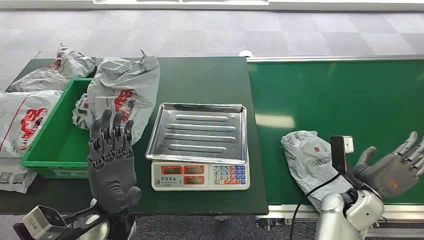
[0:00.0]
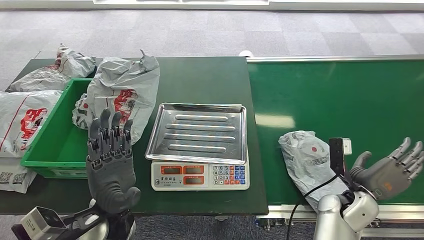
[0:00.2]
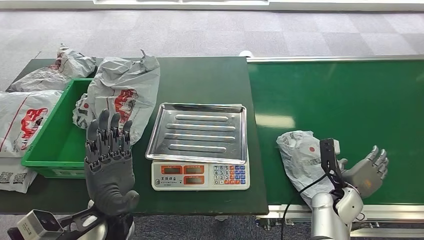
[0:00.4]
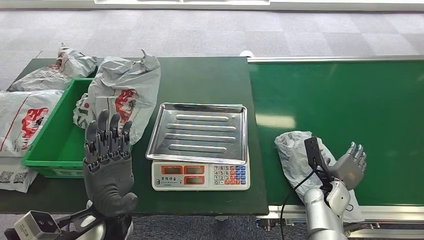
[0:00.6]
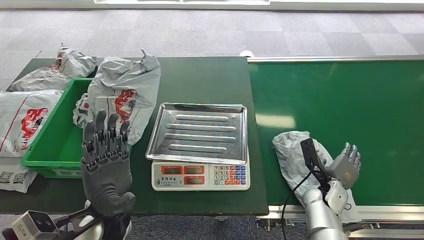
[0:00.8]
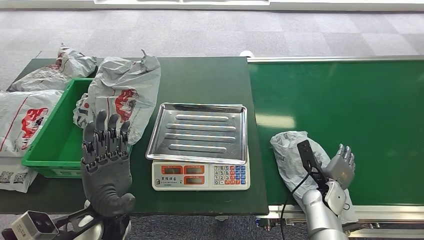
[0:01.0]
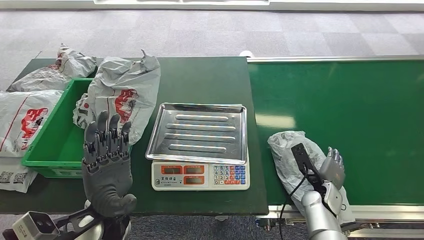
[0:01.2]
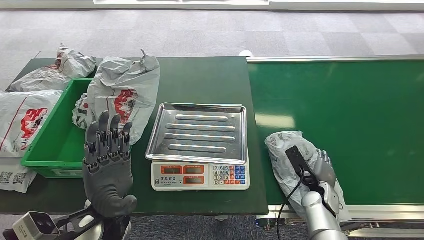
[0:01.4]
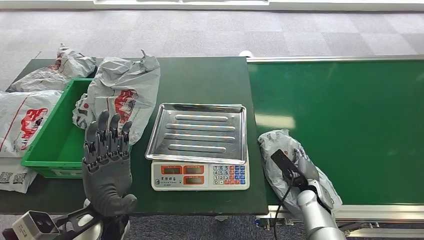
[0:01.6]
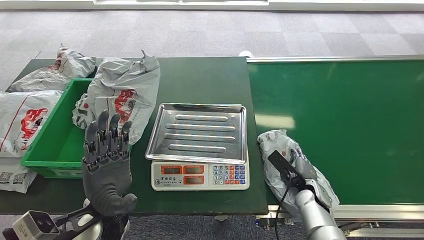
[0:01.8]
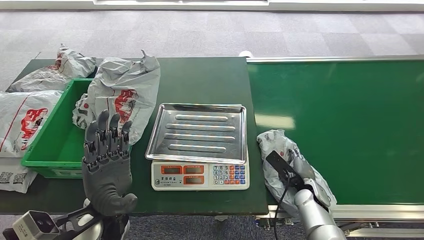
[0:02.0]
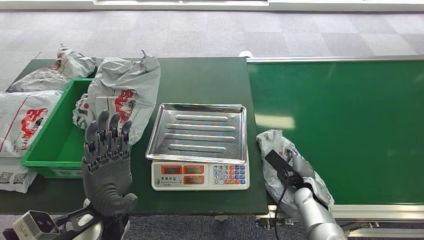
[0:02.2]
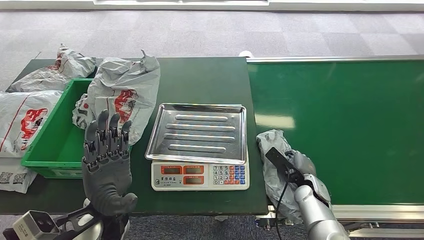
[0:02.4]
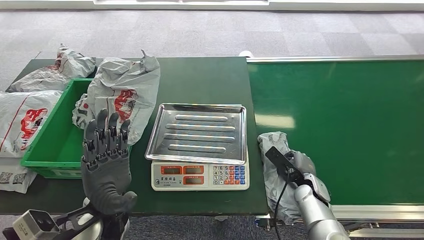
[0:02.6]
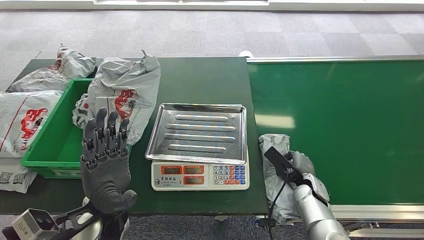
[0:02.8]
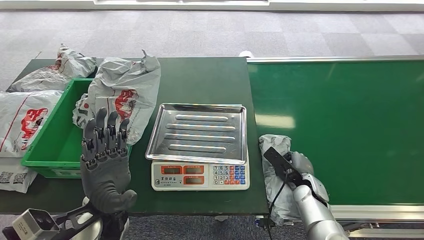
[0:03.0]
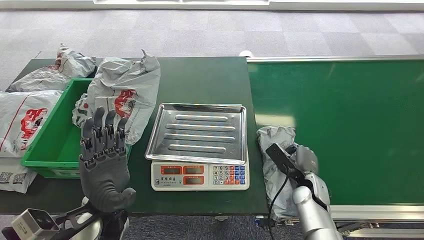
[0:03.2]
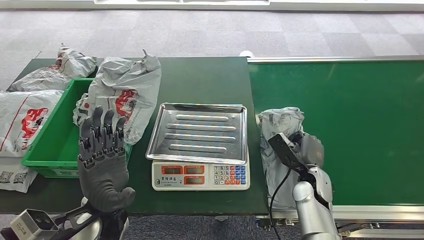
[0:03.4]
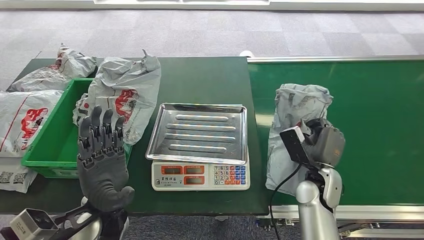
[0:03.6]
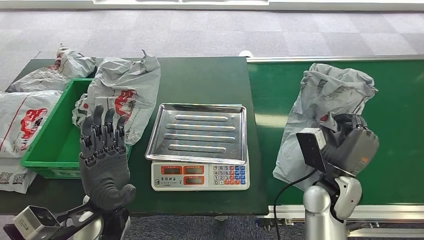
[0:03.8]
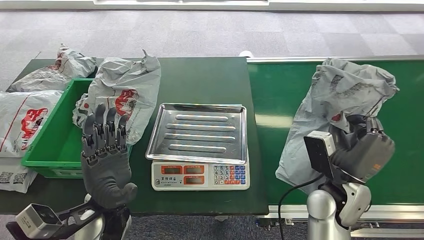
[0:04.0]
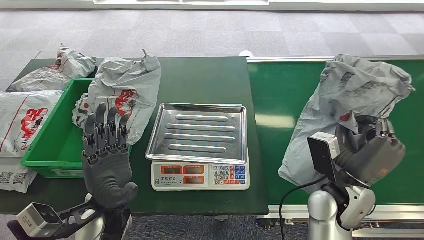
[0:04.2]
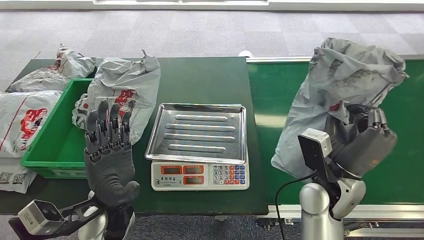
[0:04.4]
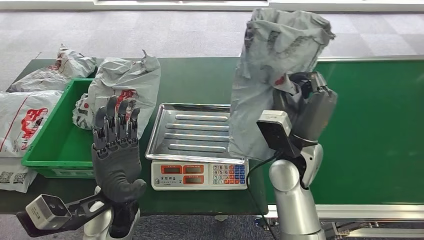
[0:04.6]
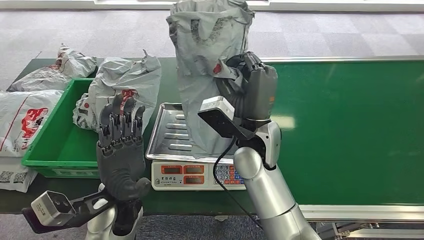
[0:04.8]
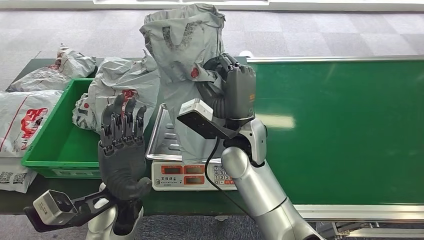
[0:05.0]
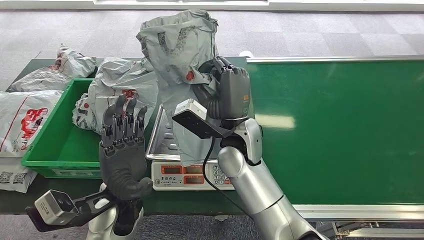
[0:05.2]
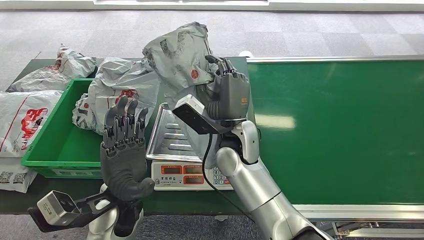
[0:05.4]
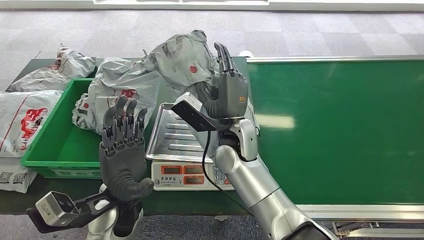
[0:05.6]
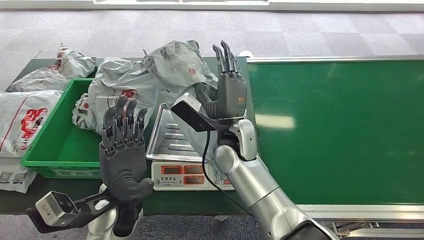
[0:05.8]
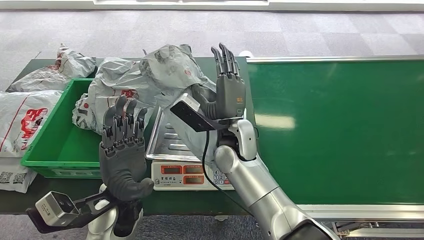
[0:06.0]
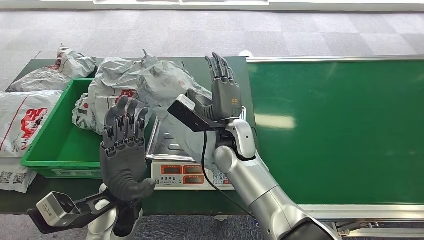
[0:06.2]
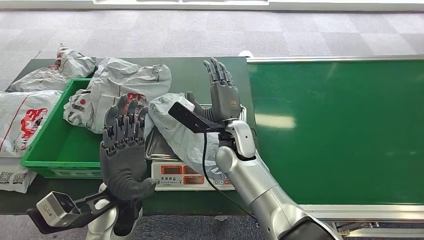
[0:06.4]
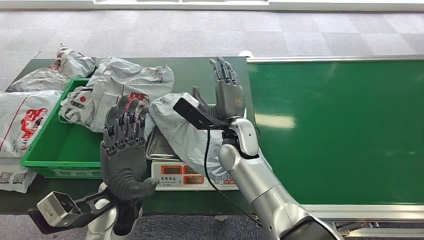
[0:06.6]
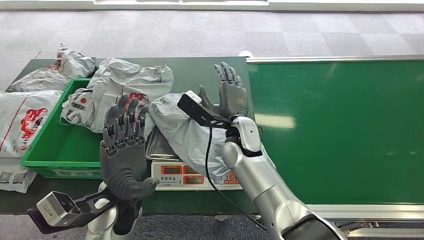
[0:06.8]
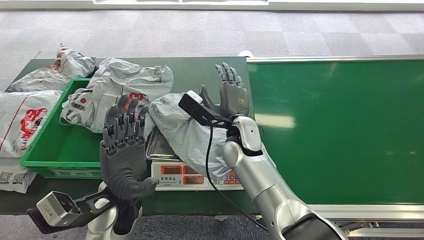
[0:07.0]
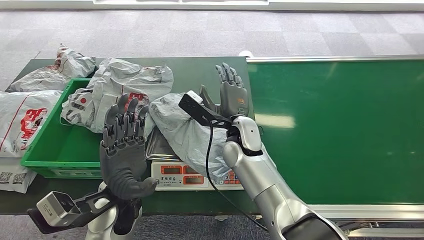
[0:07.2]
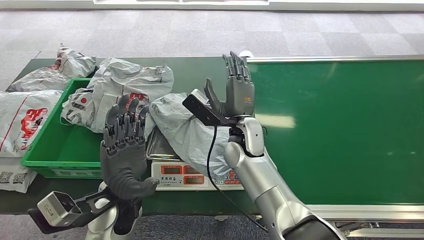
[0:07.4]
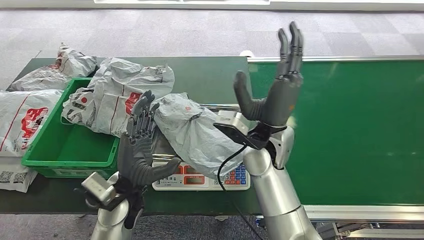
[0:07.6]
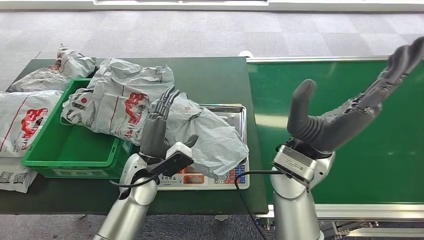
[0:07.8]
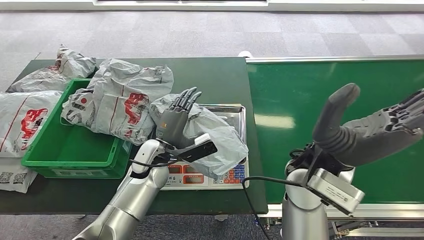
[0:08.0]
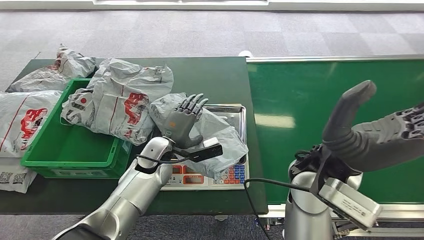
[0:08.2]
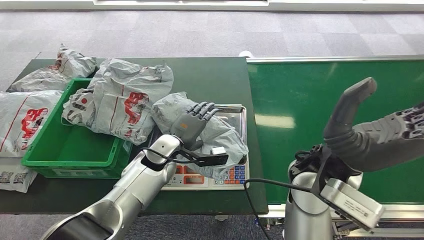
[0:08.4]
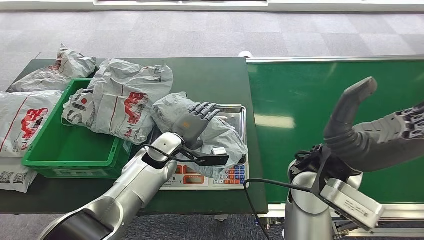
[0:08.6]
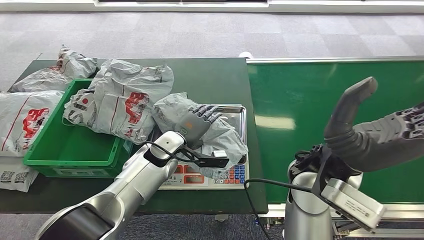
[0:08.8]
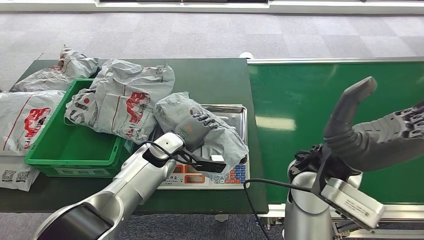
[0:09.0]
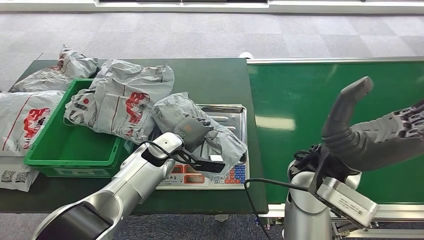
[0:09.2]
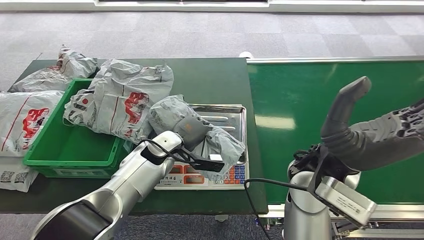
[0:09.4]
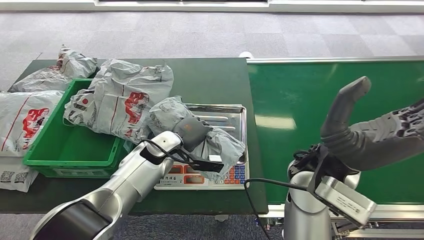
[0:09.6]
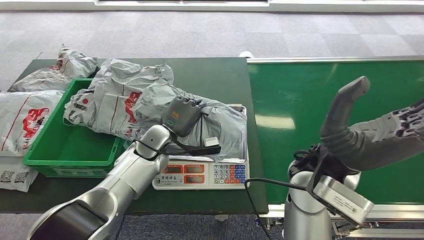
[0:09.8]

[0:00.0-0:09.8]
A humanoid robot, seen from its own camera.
Step, 0:00.0 to 0:03.6: Pick up the package from the conveyor belt.
Step, 0:03.8 to 0:07.6: Place the package onto the inbound machine.
0:02.8 to 0:04.2: The right hand heads upward, covering approximately 15 cm.
0:08.4 to 0:09.8: The hands stay close to where they were, moving slightly.

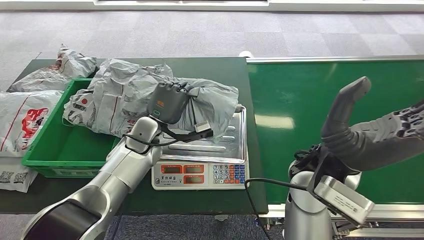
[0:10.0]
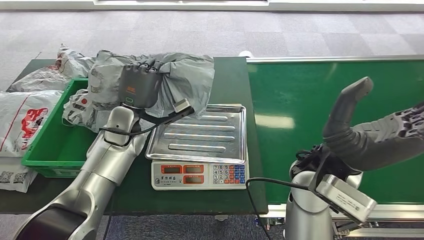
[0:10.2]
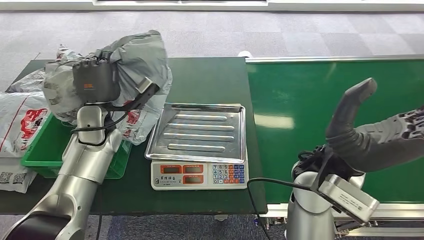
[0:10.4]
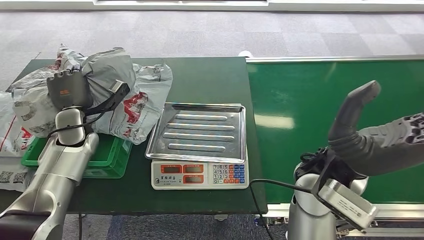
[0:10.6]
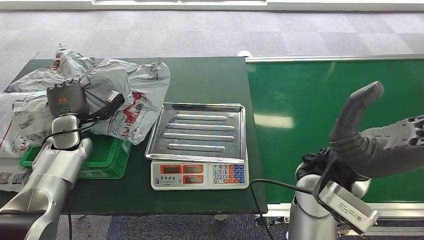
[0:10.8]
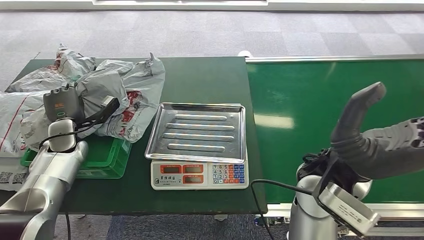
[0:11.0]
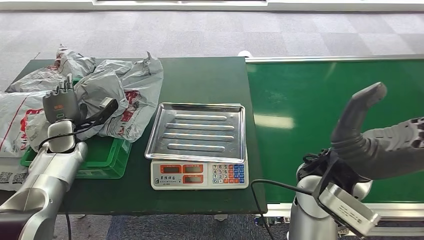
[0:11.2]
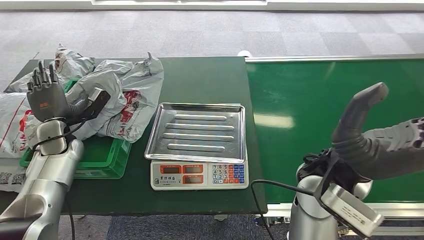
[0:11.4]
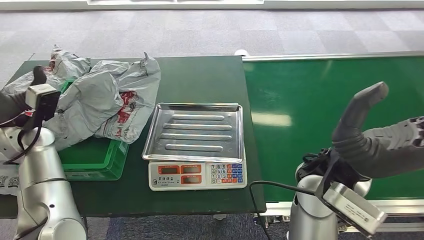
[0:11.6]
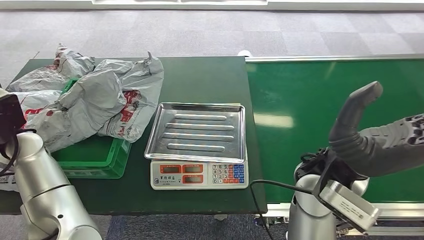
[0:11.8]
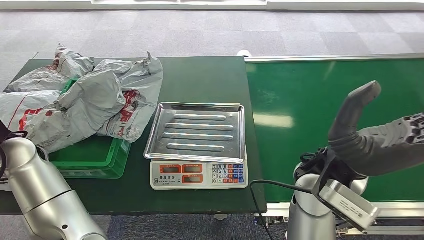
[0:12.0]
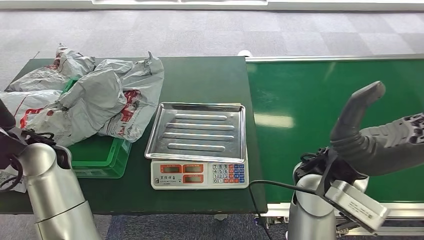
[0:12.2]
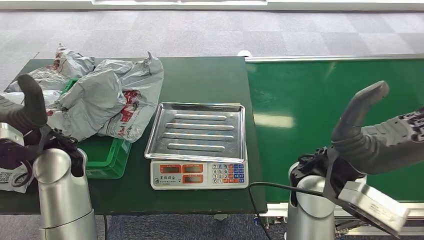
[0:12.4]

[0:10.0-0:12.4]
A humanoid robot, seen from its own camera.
Step, 0:10.8 to 0:12.4: Place the package into the parcel locker.
0:11.2 to 0:12.4: The left hand shifts roughly 20 cm upward, to the right and backward.
